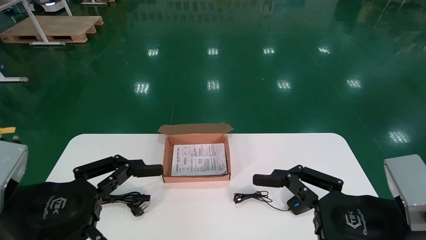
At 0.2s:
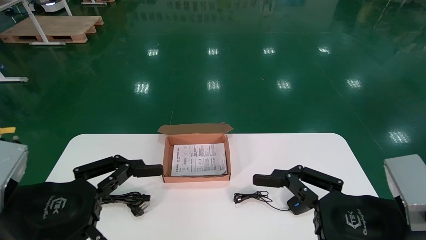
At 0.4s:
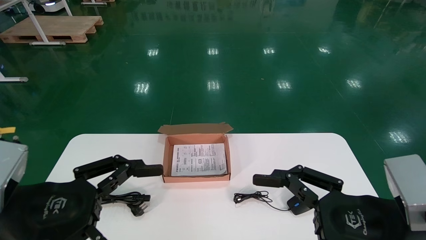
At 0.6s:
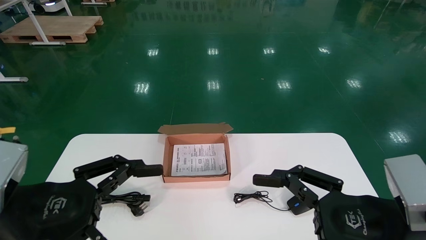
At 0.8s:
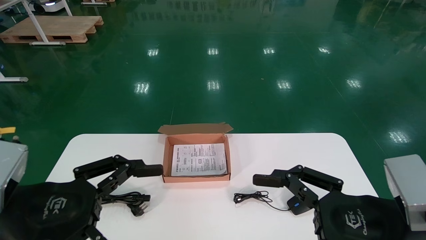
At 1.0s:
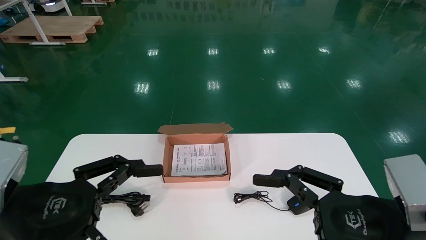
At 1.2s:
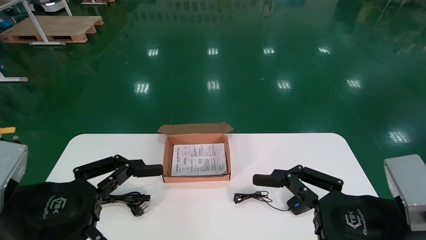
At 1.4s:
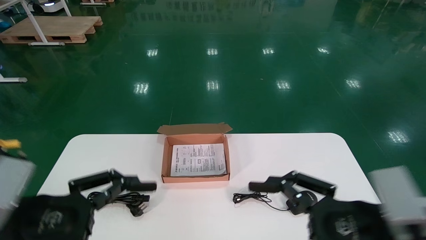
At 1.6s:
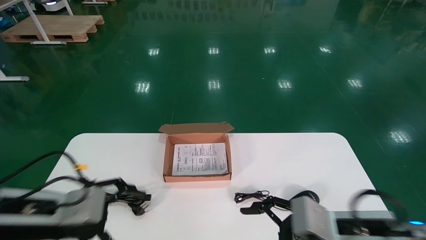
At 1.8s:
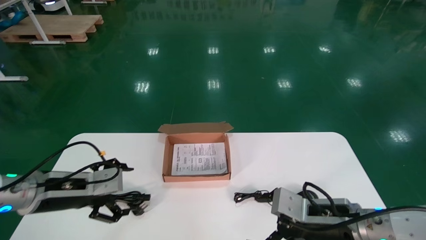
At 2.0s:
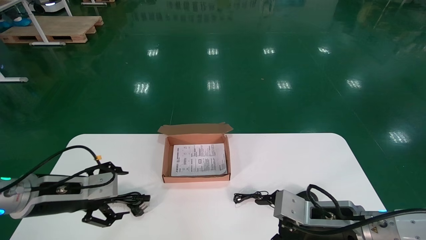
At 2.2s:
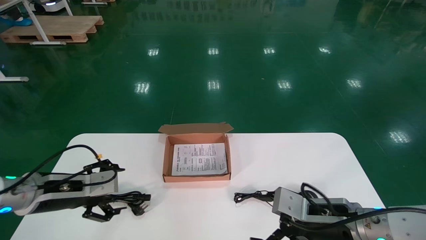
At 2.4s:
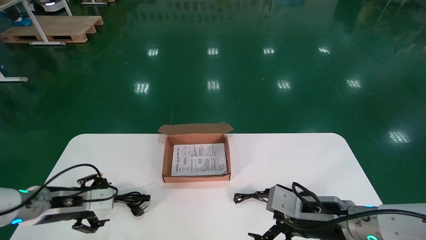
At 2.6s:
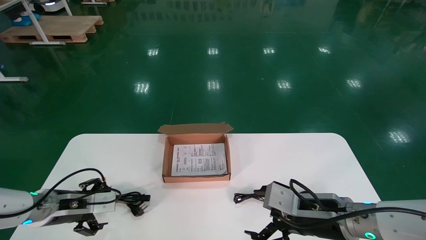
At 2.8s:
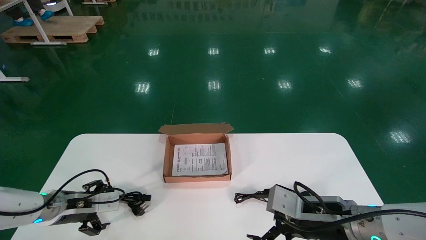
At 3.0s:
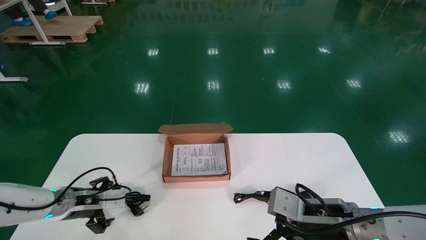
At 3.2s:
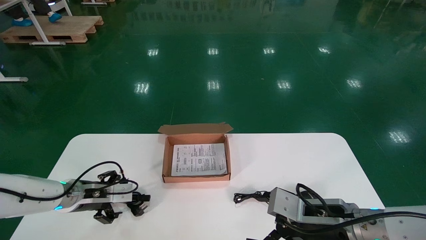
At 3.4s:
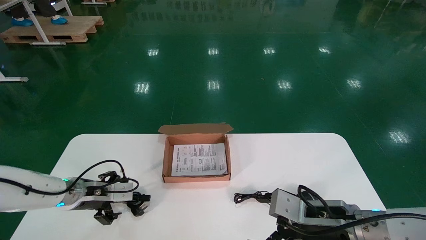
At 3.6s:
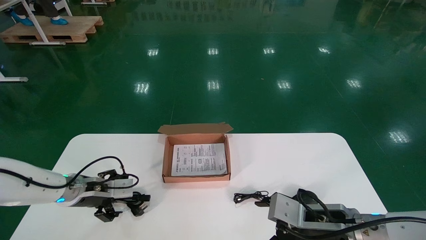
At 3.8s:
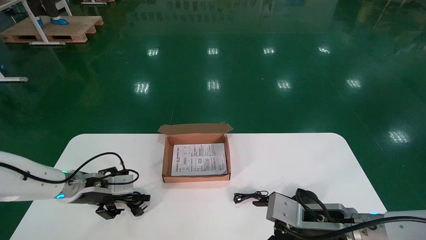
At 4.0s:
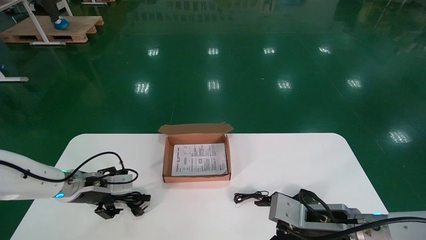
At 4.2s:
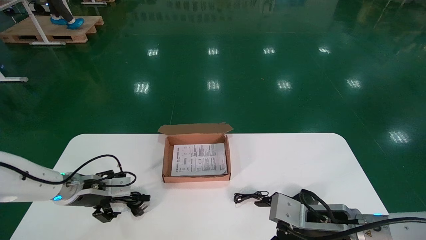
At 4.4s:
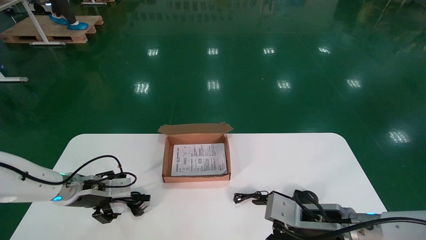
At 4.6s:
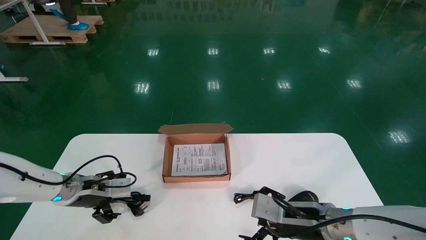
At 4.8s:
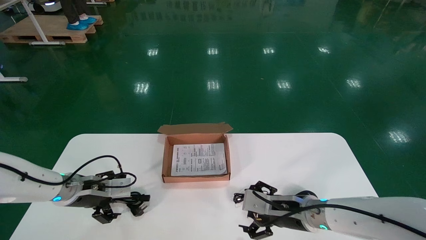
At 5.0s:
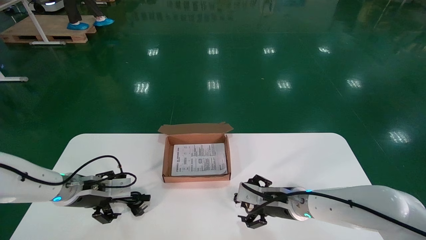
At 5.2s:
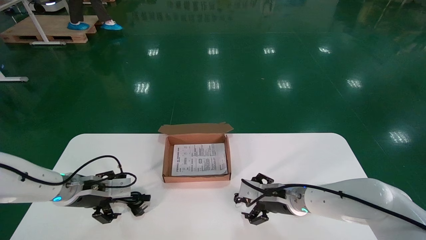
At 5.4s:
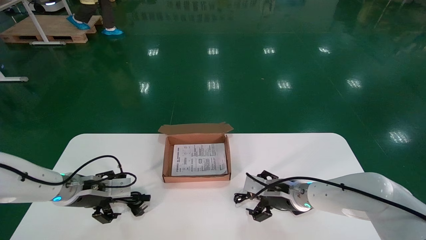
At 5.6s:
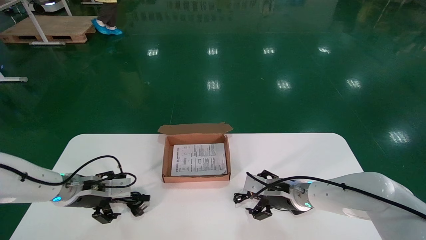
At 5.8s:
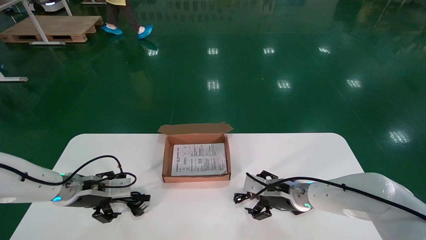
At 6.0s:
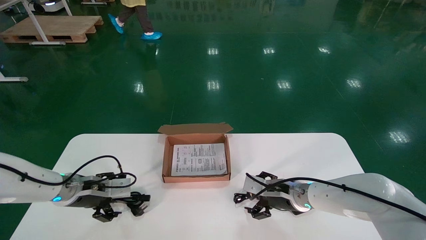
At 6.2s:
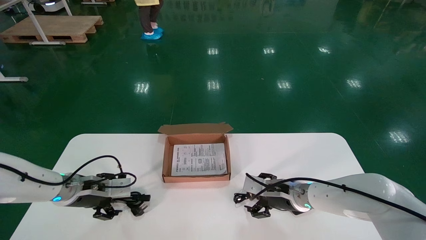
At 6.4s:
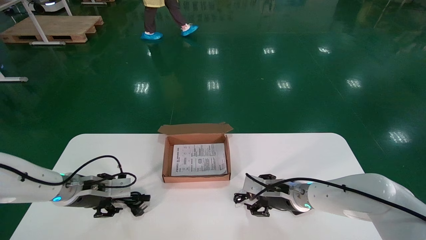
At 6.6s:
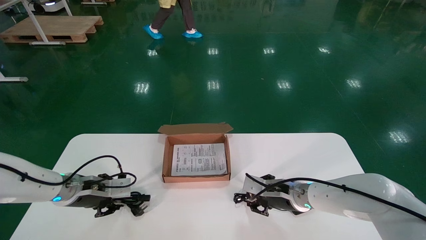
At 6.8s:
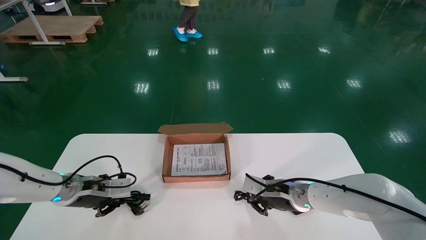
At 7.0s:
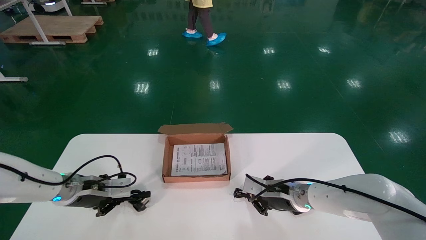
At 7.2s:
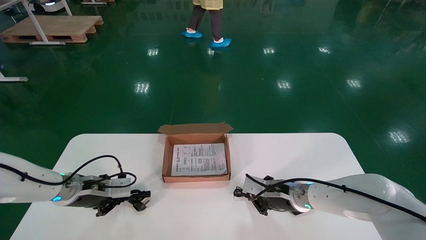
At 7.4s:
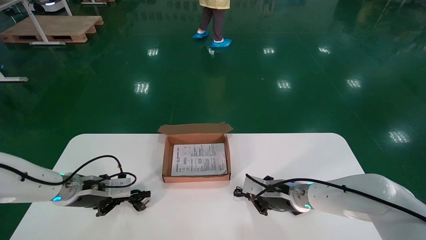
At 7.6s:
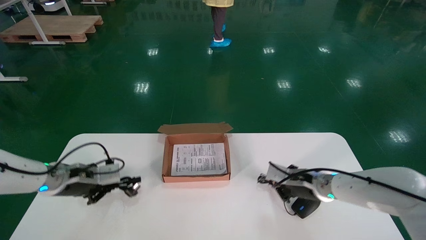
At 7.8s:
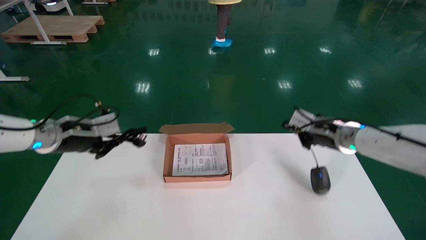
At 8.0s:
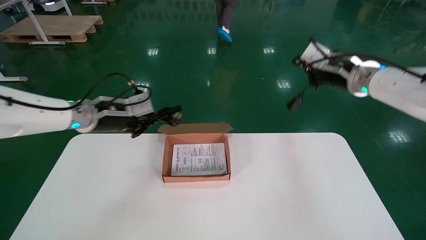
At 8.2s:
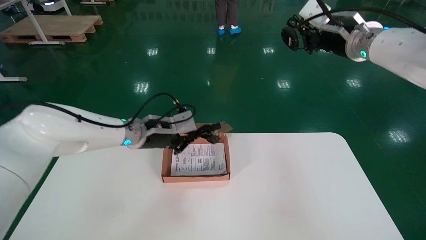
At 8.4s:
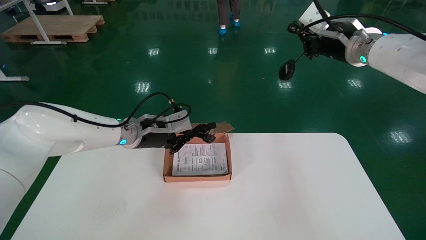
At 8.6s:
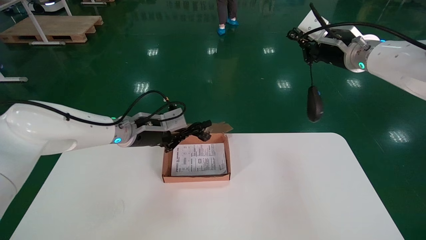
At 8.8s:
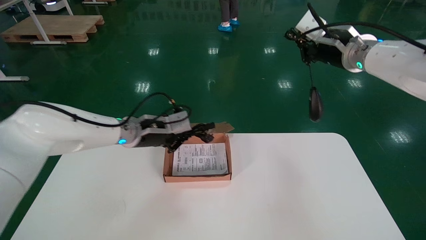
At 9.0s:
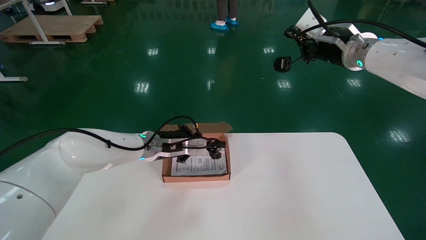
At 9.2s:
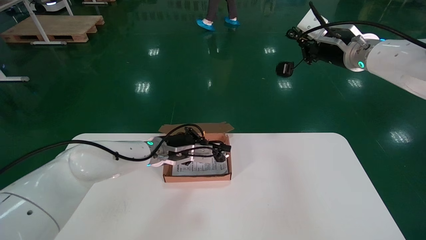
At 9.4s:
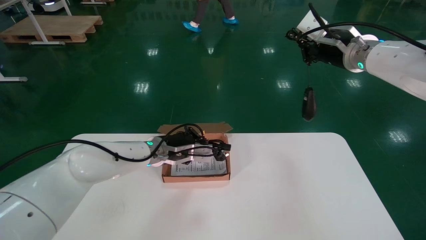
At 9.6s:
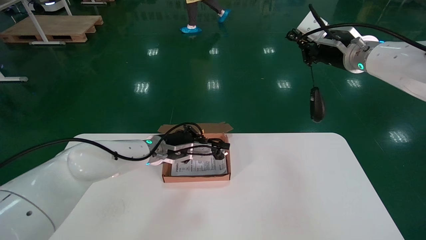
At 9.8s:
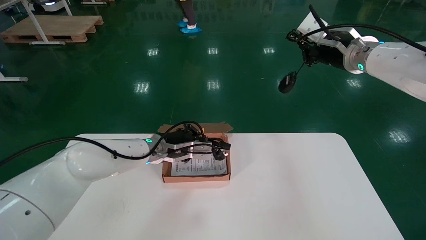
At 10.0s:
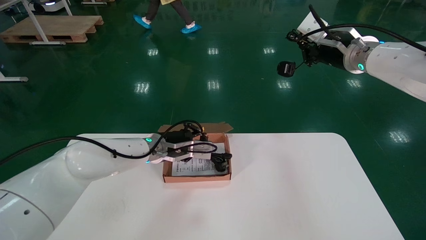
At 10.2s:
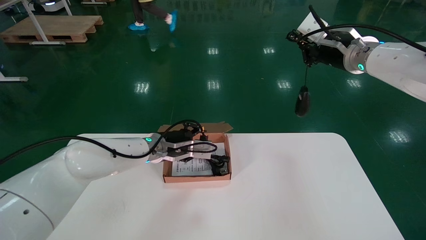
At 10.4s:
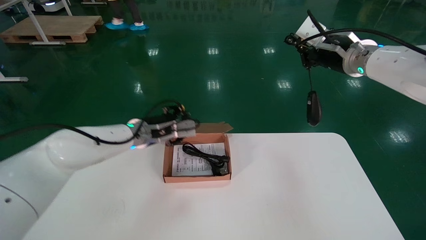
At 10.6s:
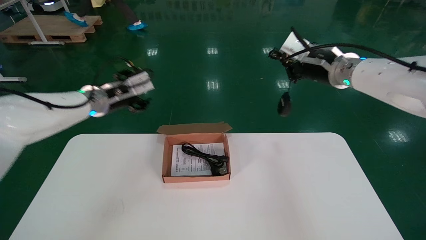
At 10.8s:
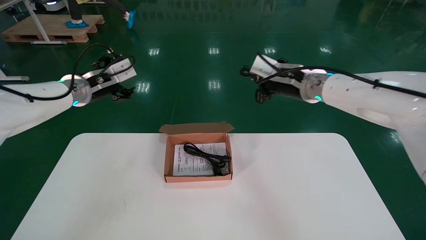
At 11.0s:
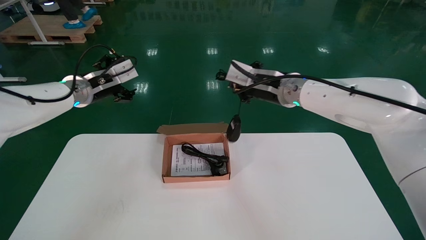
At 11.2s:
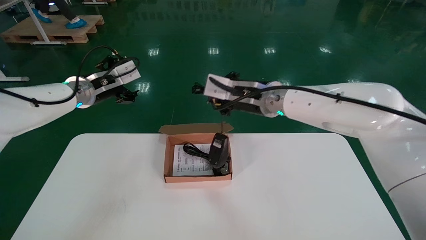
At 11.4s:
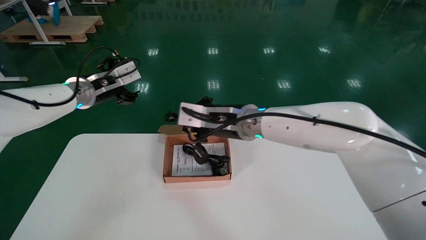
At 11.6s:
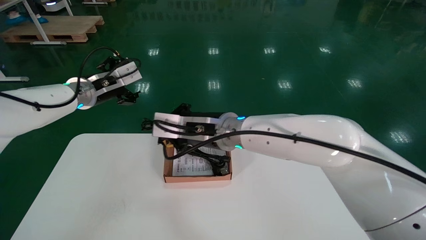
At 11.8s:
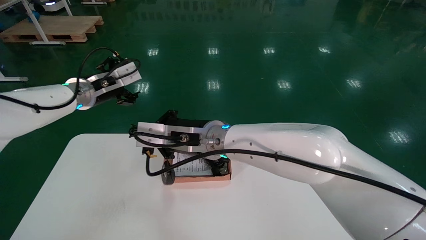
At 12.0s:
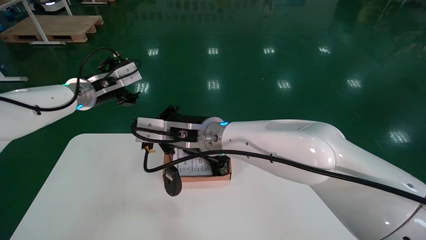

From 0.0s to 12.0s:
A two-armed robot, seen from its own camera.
Step, from 1.6s to 7.0s: Simultaneously pick up the mouse and power cord from the accessory packaging area.
From 0.0s to 1.6s: Both grippers travel together forward and downward, some 10 cm.
From 1.6s to 3.0s: The right gripper moves some 5 cm; the left gripper goes roughly 15 cm forward and downward.
From 3.0s to 4.4s: There are only small adjustments of the grippers.
From 4.4s to 6.0s: The right gripper is displaced forward by roughly 15 cm.
From 6.0s to 7.6s: The right gripper travels upward and to the right by approximately 10 cm, and closes up; the left gripper heads upward, covering about 5 cm, and closes.
From 7.6s to 9.0s: The left gripper shifts about 20 cm to the right. Meanwhile the right gripper heads upward, covering some 25 cm.
From 9.0s to 10.4s: The left gripper moves roughly 5 cm, and opens up.
From 10.4s to 12.0s: The left gripper moves to the left and upward, roughly 10 cm, and opens. The right gripper is displaced to the left and downward by approximately 30 cm.

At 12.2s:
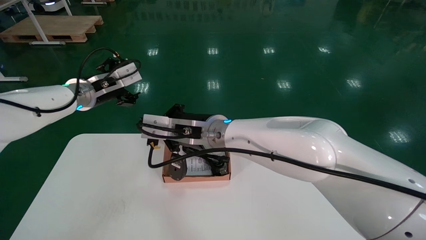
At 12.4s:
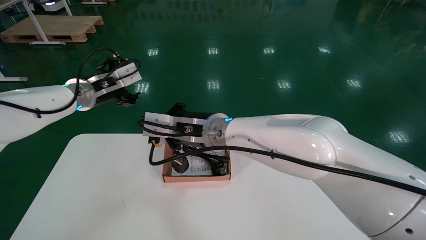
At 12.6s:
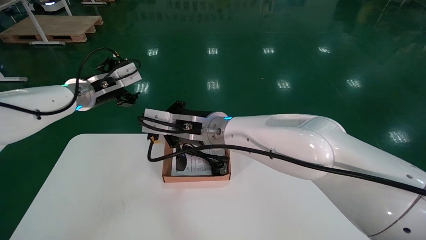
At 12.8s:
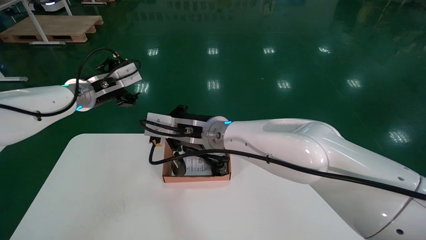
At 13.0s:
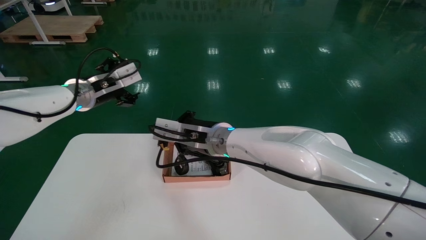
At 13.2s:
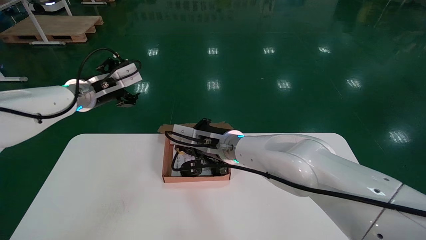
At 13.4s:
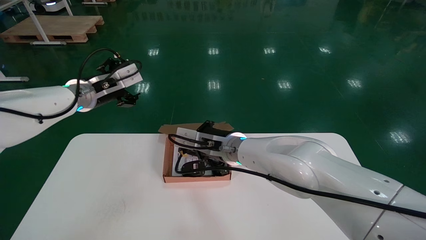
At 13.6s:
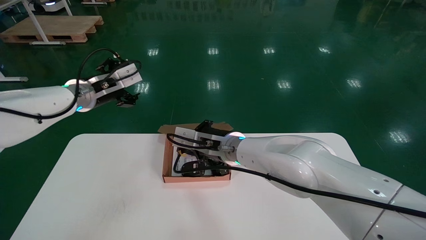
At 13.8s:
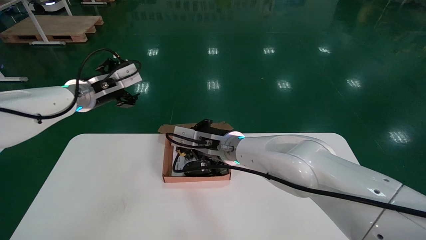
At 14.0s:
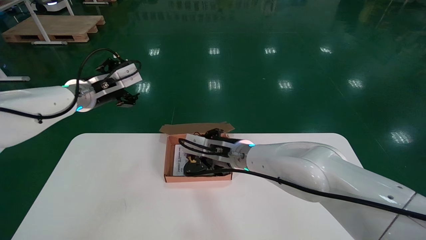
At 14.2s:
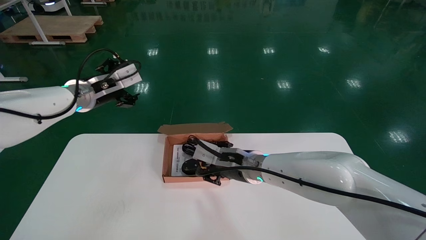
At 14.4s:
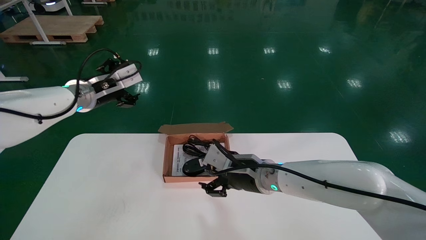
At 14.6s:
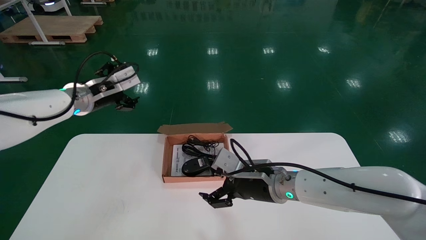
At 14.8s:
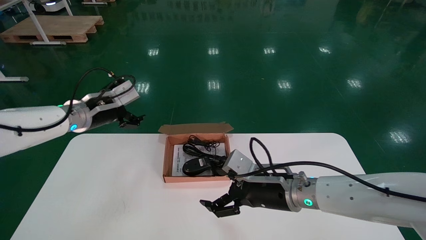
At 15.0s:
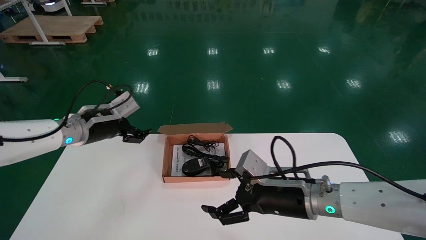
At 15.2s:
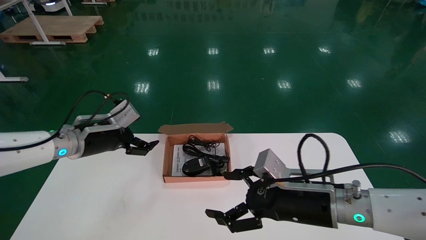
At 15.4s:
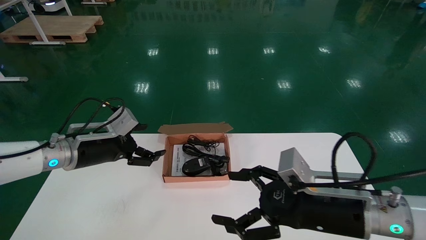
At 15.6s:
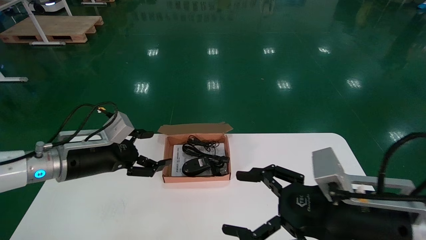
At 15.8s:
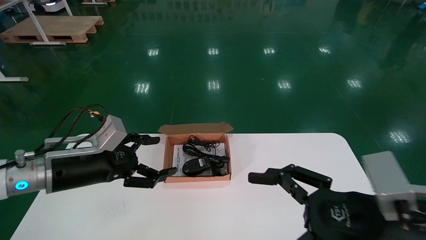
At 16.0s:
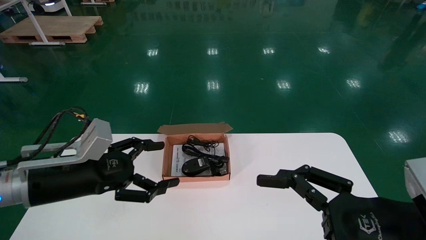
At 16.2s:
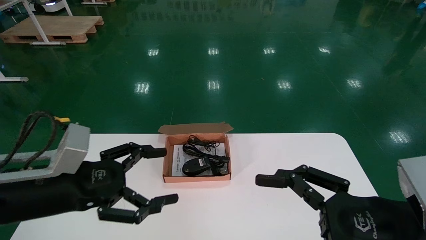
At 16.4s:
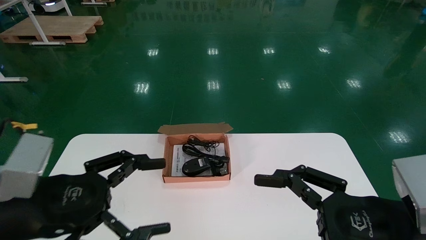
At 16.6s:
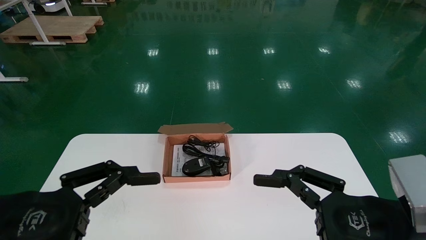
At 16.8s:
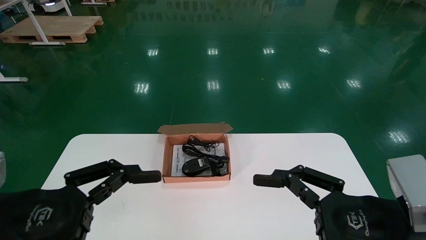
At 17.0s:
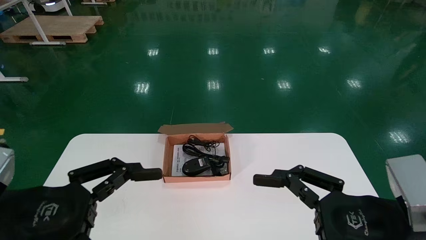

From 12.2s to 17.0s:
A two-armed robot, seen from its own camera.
From 12.2s to 13.8s: The right gripper goes about 10 cm downward and forward.
From 13.8s to 15.4s: The left gripper is displaced downward and backward by about 15 cm, while the right gripper shifts about 25 cm to the right and backward, and opens its fingers.
From 15.4s to 17.0s: The left gripper travels backward by roughly 20 cm, while the right gripper moves backward, some 10 cm.
